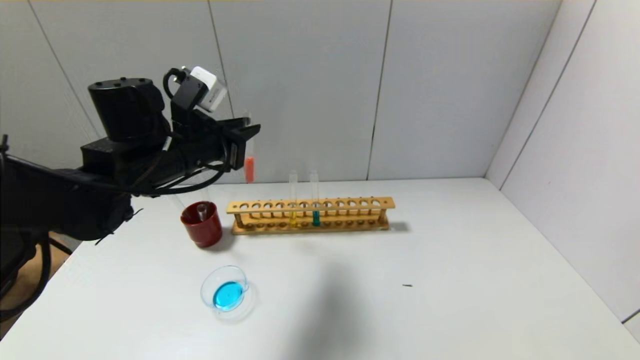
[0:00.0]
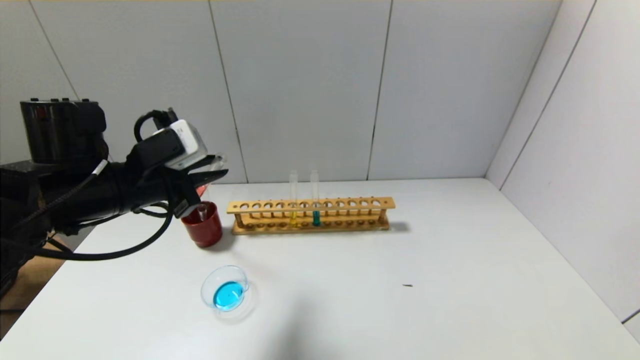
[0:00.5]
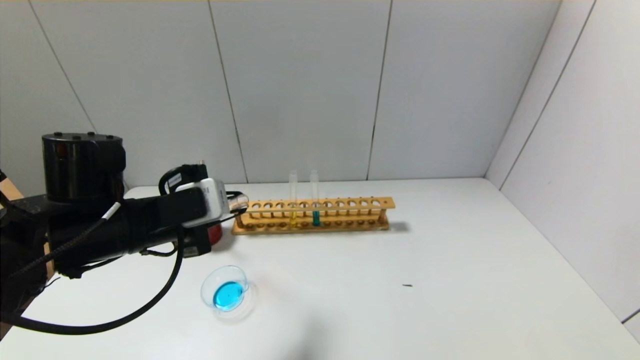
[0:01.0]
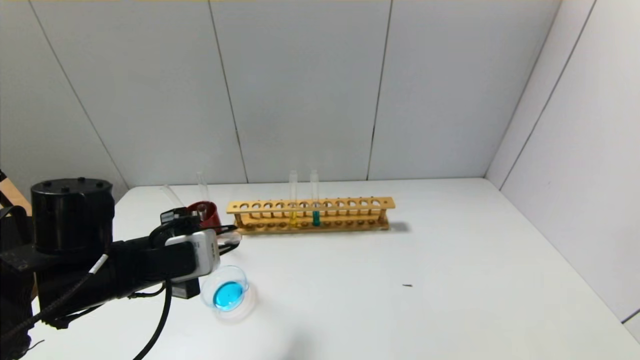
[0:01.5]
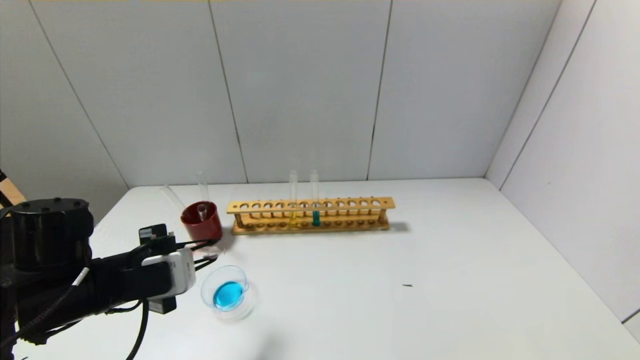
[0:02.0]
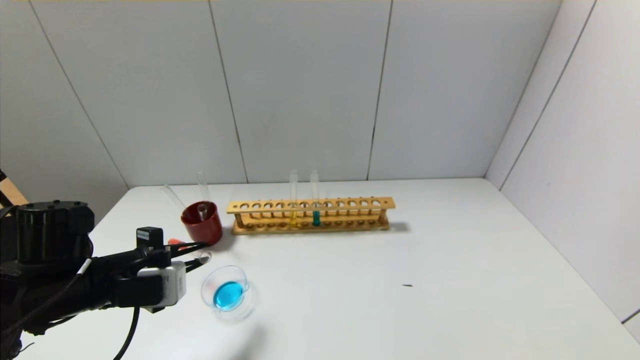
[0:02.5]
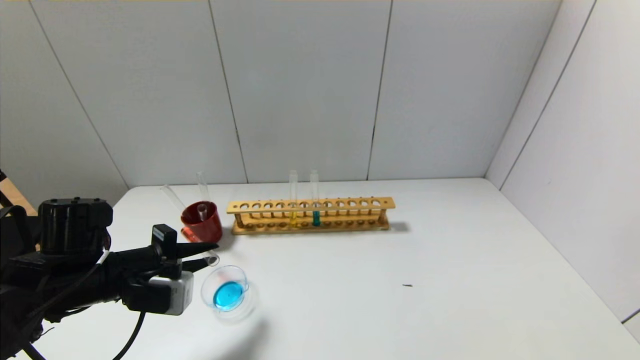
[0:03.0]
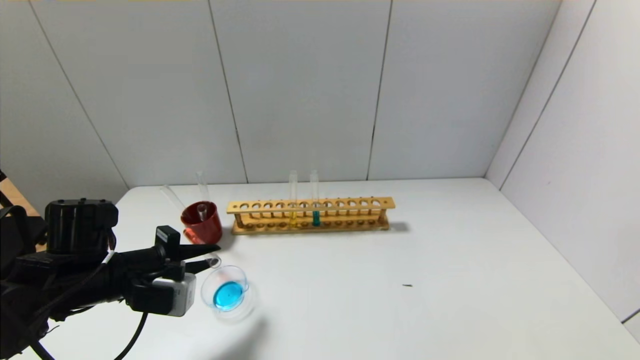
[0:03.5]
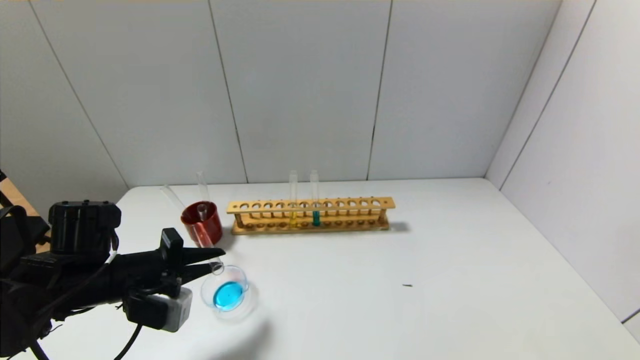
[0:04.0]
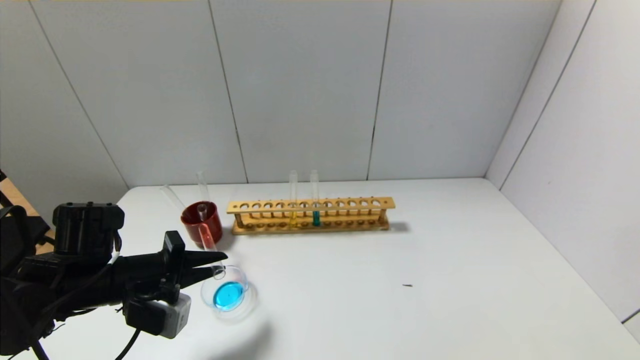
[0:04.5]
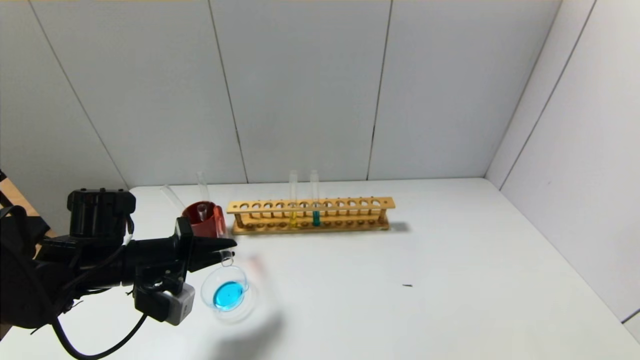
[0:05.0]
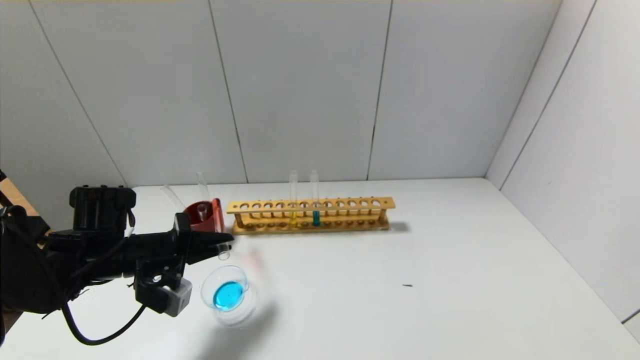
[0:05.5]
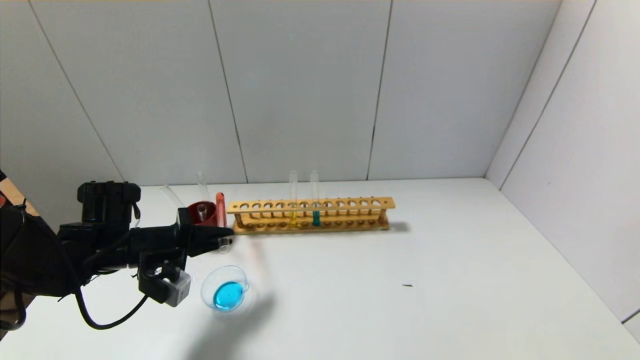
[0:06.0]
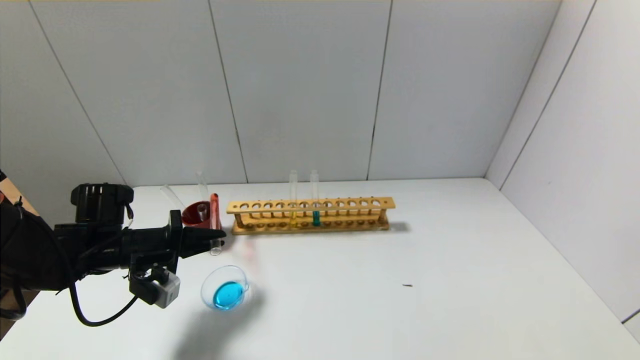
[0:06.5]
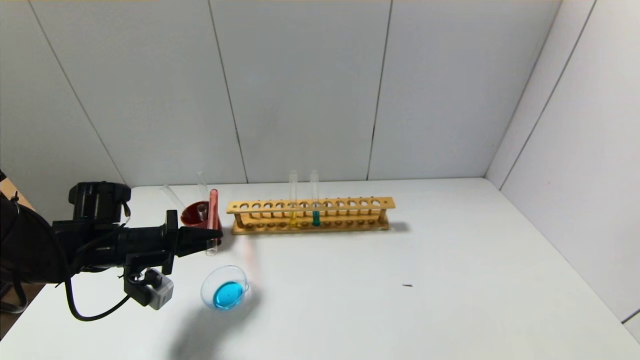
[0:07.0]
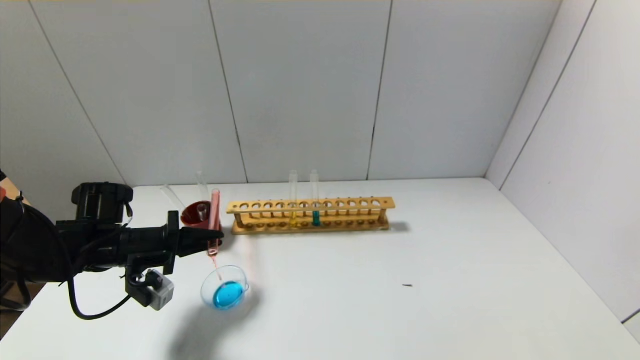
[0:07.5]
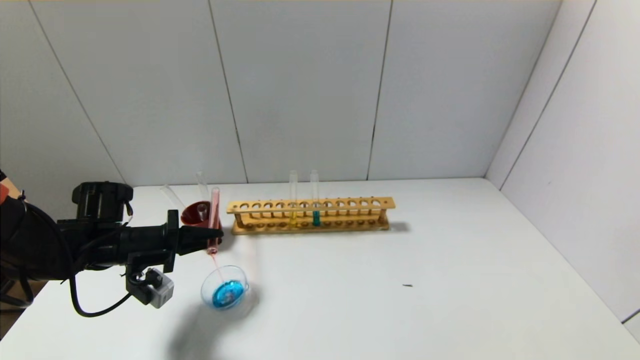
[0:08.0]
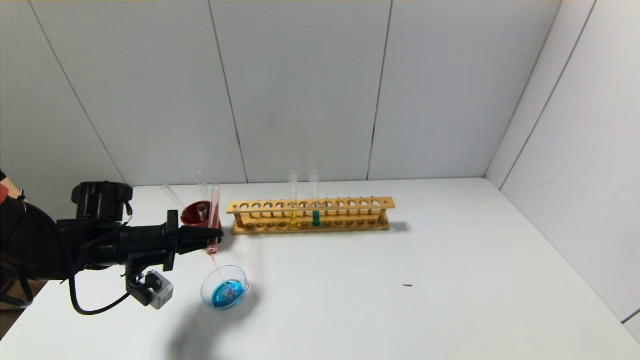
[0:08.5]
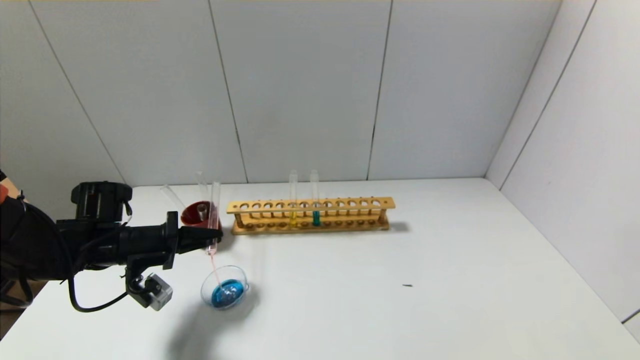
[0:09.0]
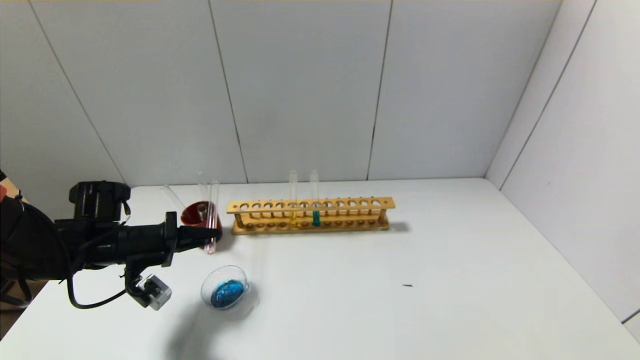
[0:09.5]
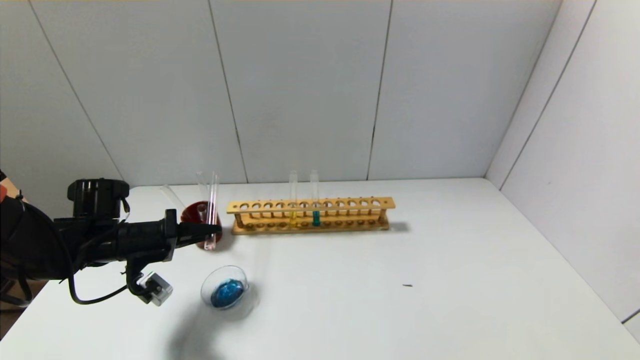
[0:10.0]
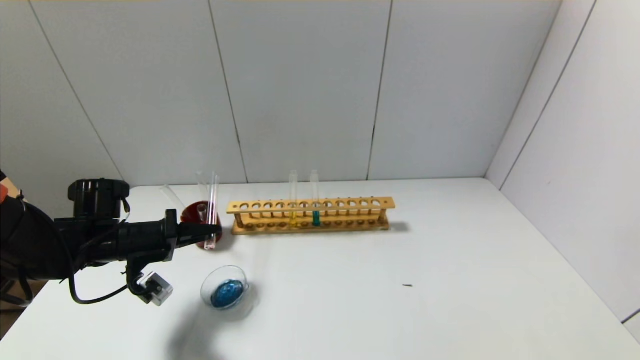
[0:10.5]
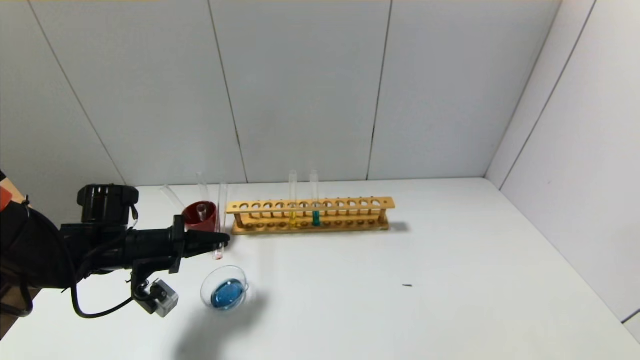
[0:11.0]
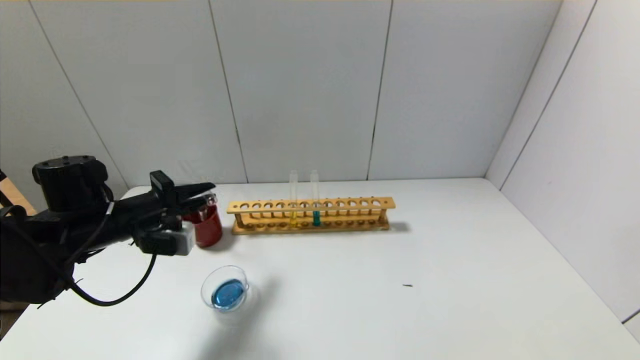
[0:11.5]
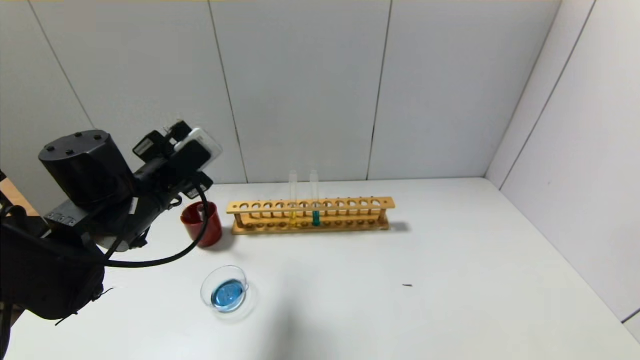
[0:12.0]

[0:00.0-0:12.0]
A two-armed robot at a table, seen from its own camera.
Step, 0:00.0 to 0:11.5: Pour the red reagent into the graduated cylinder with the left gripper.
0:00.0 to 0:02.0: The left gripper moves backward, downward and to the left, about 15 cm.
0:04.0 to 0:06.0: The left gripper moves forward, roughly 5 cm.
0:06.0 to 0:08.0: The grippers move only a little.
0:08.0 to 0:10.0: The grippers make only small movements.
0:10.0 to 0:12.0: The left gripper heads upward and to the right, covering about 15 cm.

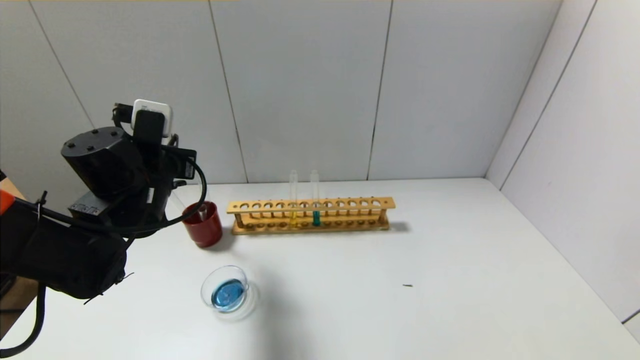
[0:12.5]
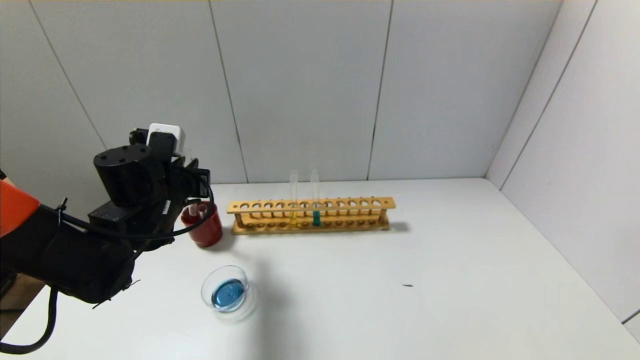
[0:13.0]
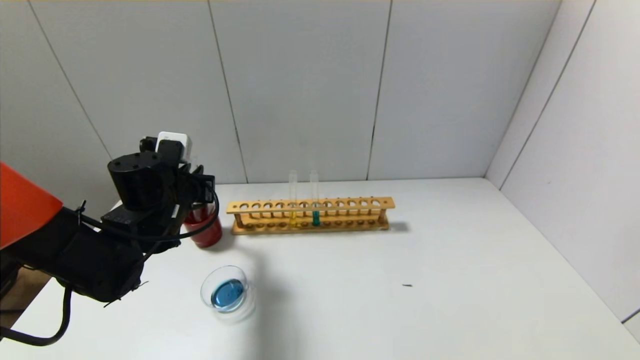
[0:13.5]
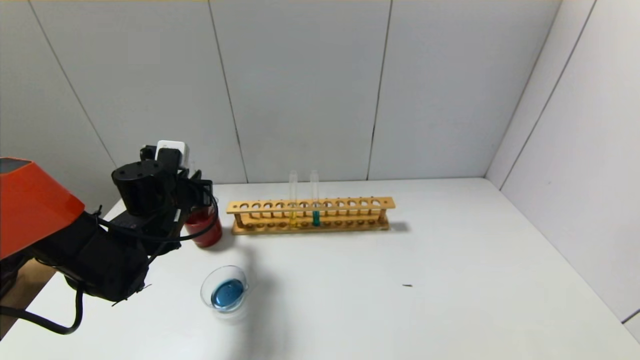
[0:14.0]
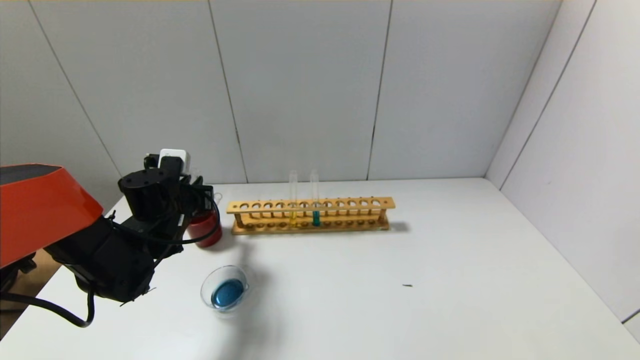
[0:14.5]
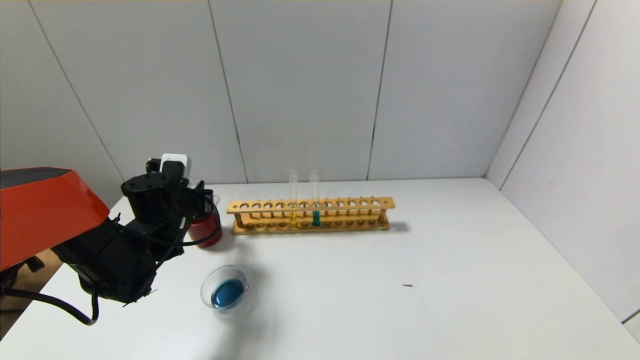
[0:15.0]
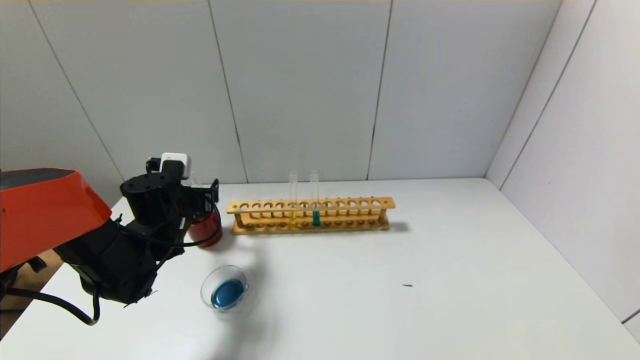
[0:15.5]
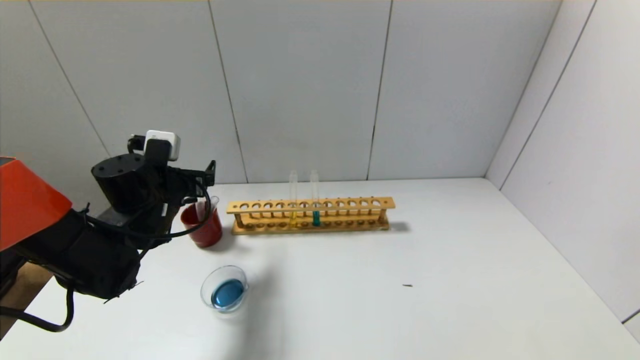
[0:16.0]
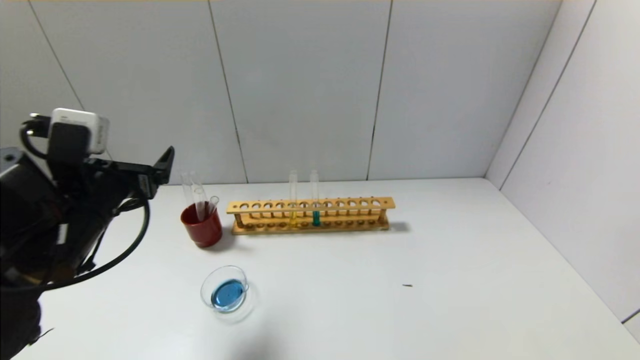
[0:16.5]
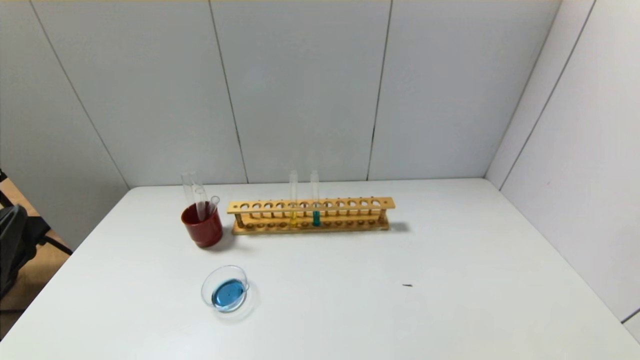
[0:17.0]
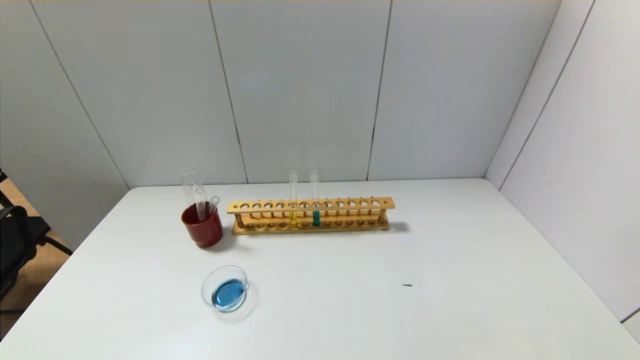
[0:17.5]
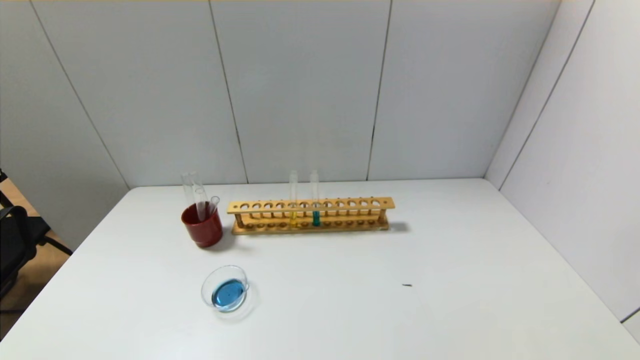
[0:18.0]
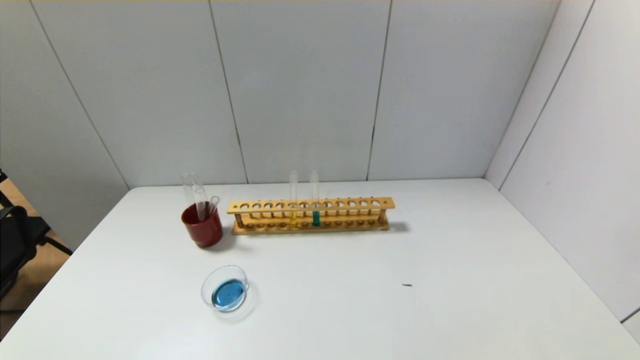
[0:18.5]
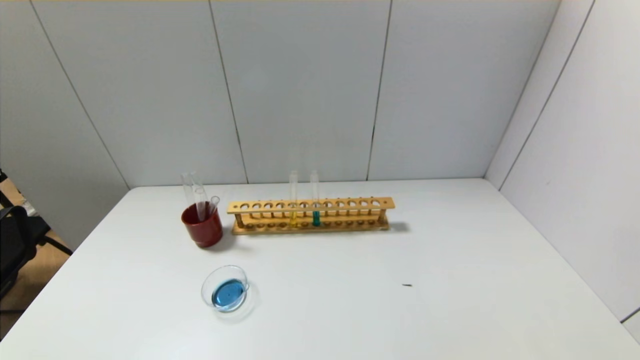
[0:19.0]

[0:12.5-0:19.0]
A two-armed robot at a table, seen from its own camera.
Step, 0:12.5 to 0:15.0: Place the test tube into the brown cup with the left gripper.
0:12.5 to 0:14.5: The left gripper heads downward, covering some 10 cm.
0:14.5 to 0:17.0: The left gripper shifts some 30 cm backward, and opens its fingers.

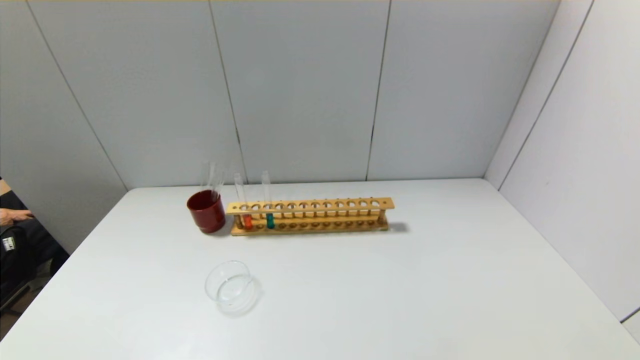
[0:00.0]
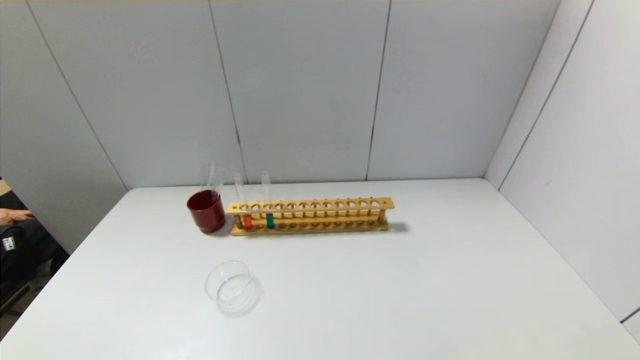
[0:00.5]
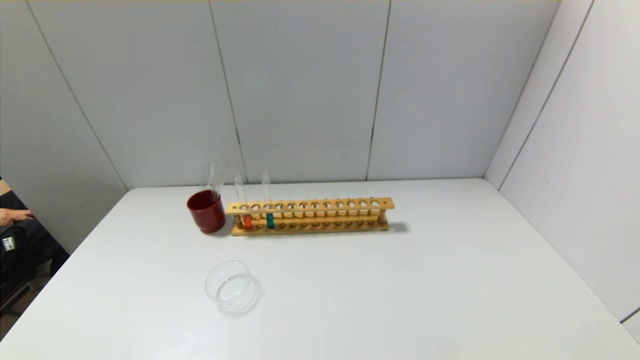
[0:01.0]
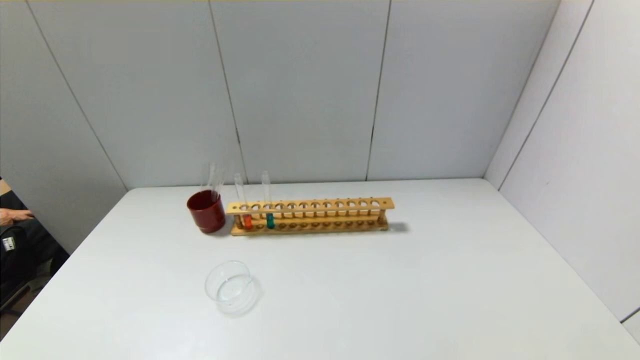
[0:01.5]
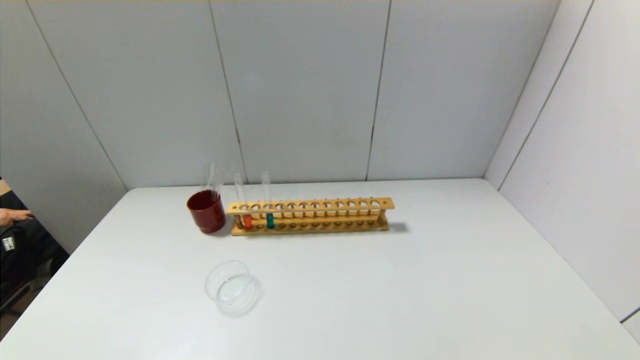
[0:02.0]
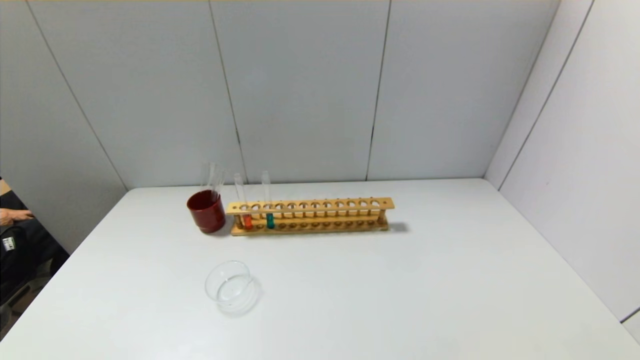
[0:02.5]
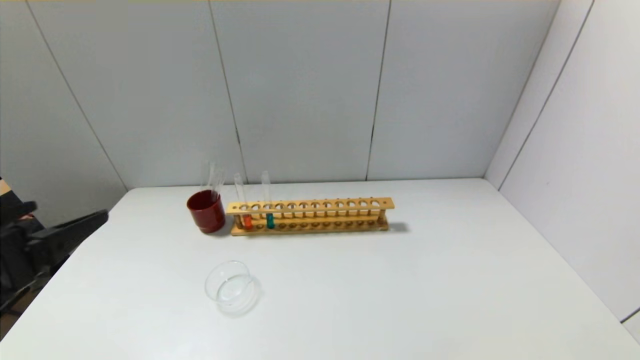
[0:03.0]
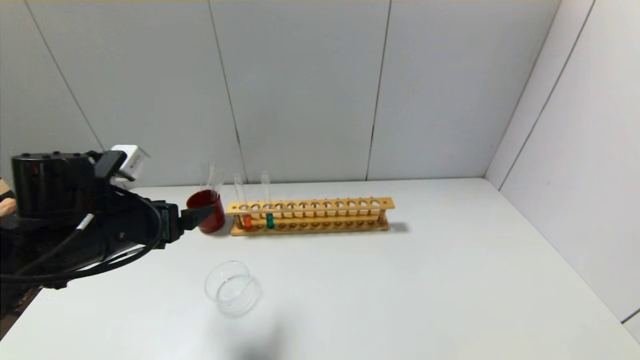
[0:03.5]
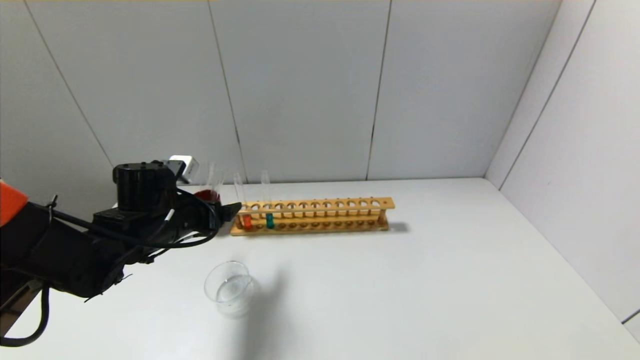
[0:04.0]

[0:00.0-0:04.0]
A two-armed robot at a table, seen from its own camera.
0:02.0 to 0:04.0: The left gripper goes about 35 cm forward.
